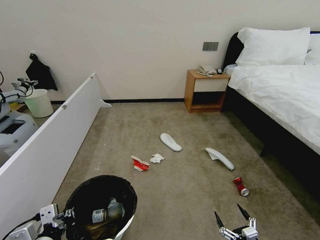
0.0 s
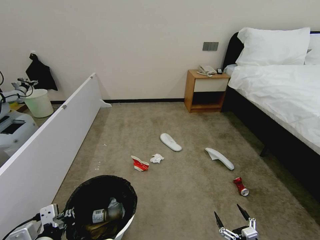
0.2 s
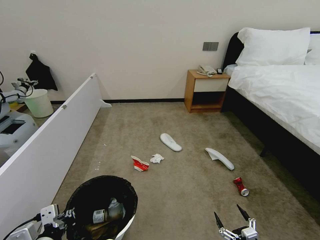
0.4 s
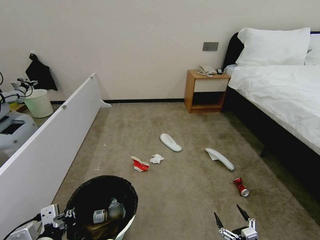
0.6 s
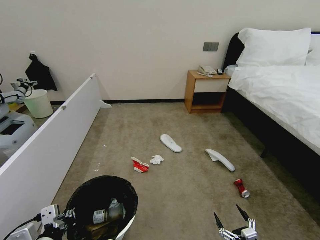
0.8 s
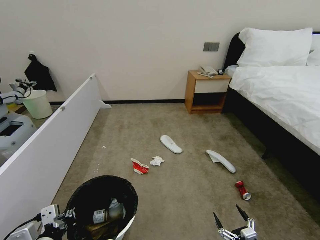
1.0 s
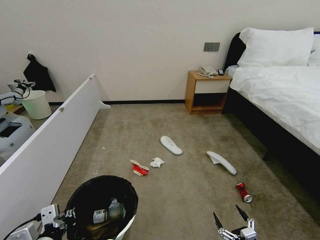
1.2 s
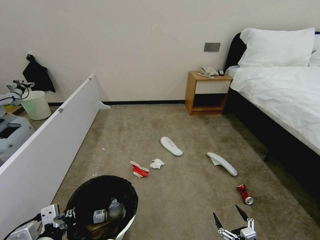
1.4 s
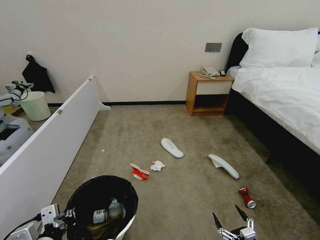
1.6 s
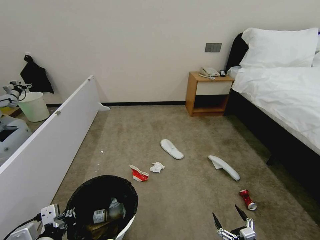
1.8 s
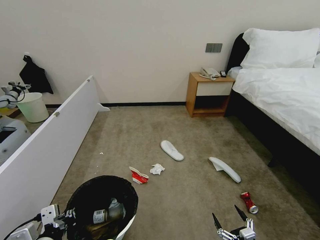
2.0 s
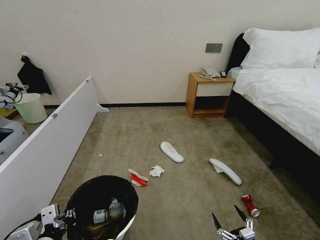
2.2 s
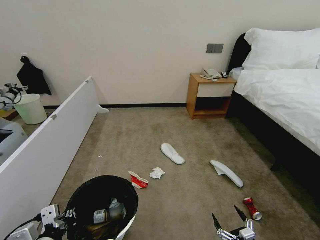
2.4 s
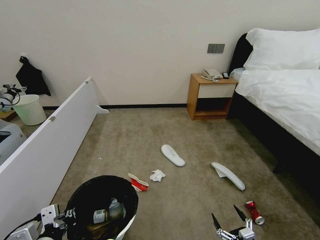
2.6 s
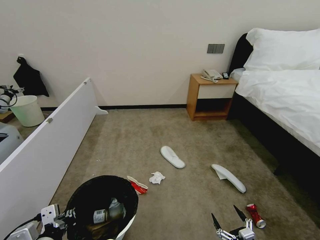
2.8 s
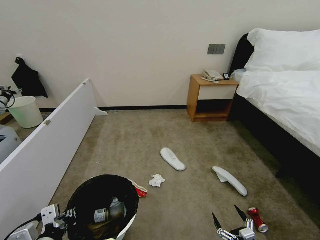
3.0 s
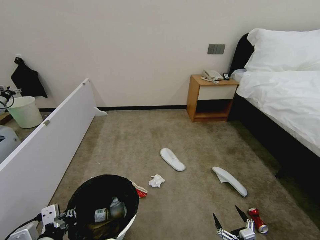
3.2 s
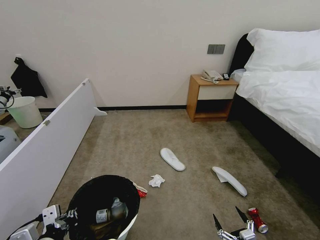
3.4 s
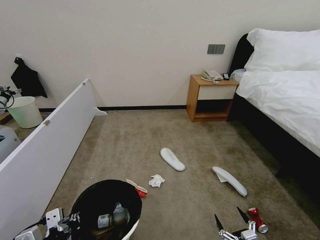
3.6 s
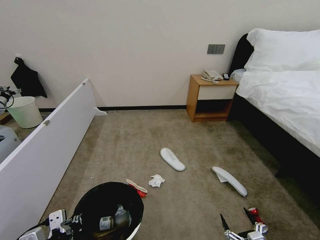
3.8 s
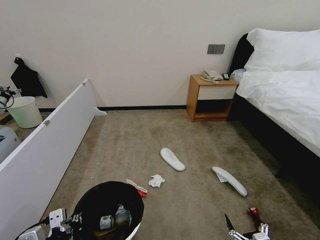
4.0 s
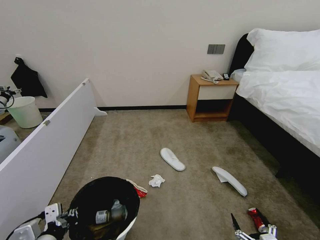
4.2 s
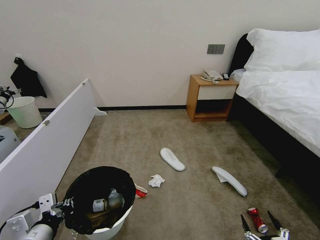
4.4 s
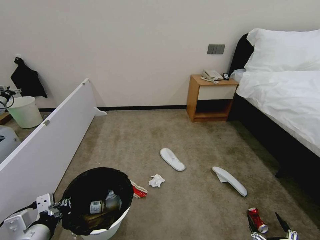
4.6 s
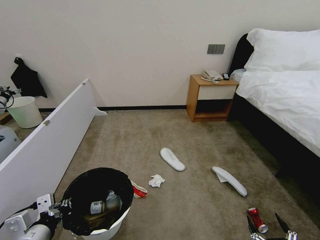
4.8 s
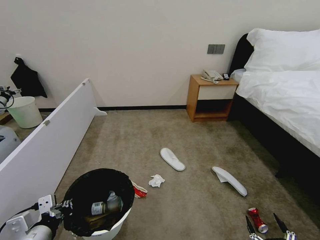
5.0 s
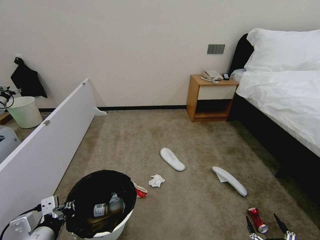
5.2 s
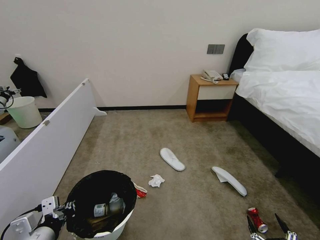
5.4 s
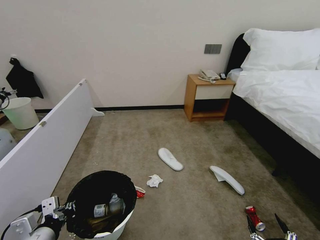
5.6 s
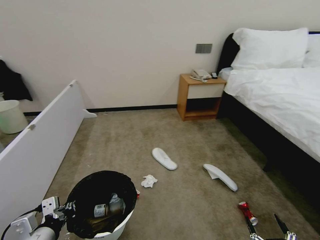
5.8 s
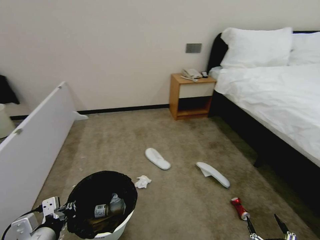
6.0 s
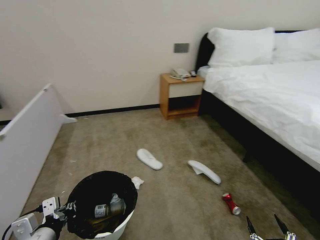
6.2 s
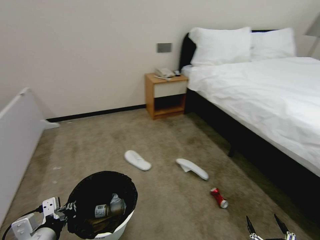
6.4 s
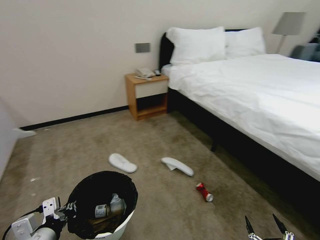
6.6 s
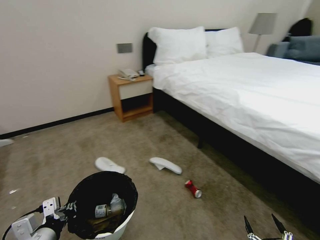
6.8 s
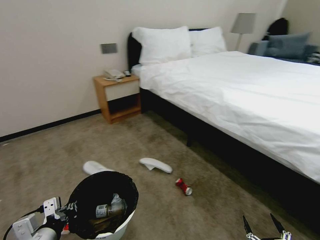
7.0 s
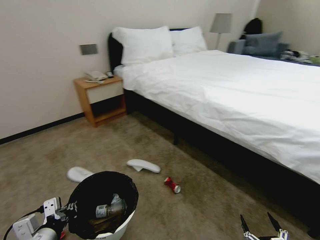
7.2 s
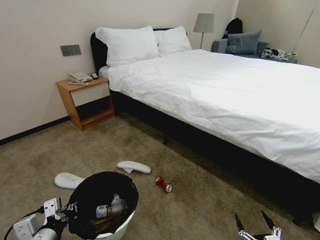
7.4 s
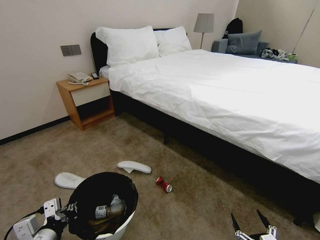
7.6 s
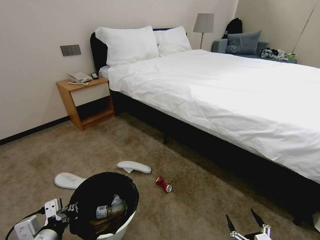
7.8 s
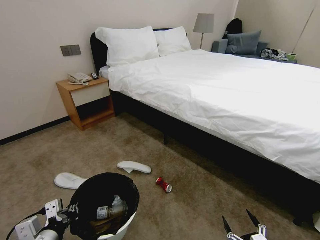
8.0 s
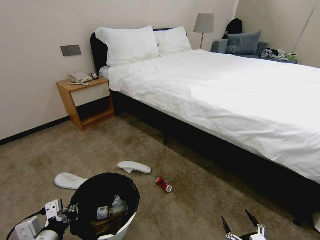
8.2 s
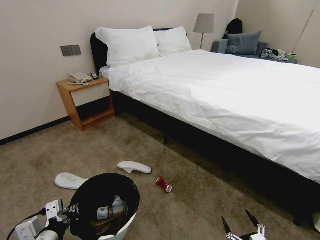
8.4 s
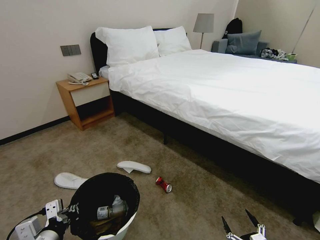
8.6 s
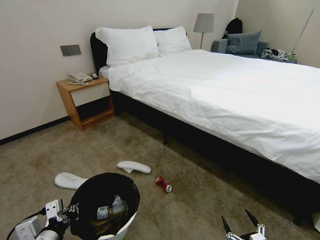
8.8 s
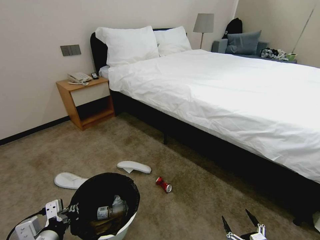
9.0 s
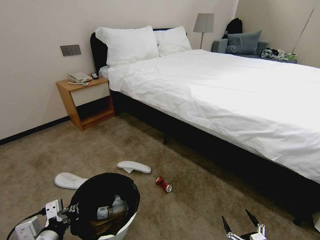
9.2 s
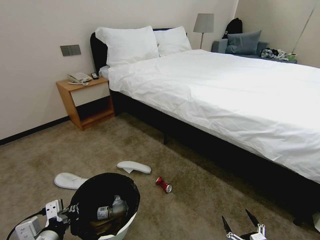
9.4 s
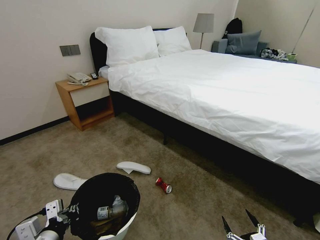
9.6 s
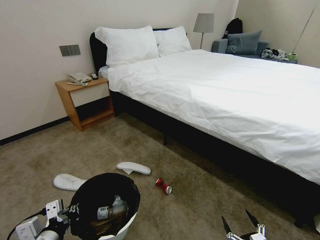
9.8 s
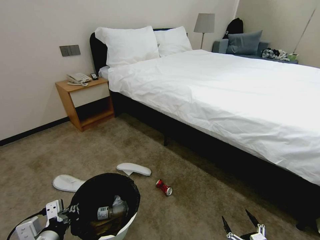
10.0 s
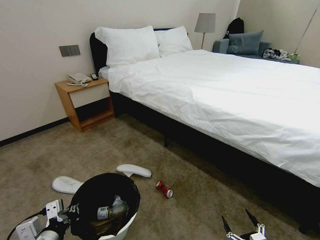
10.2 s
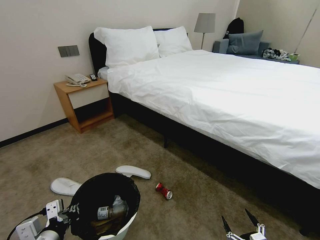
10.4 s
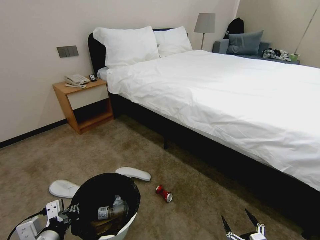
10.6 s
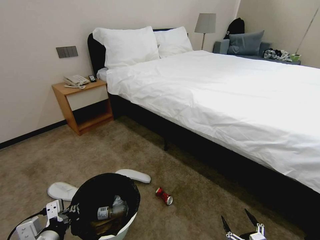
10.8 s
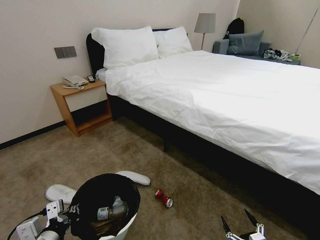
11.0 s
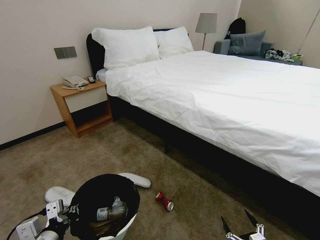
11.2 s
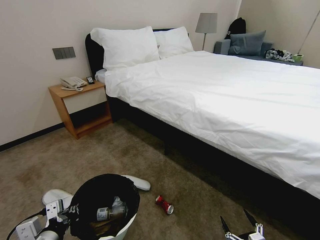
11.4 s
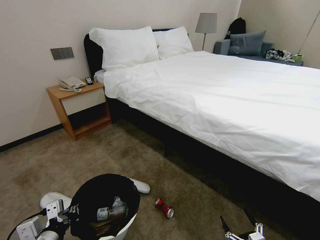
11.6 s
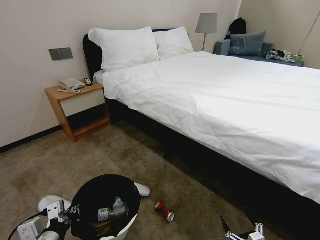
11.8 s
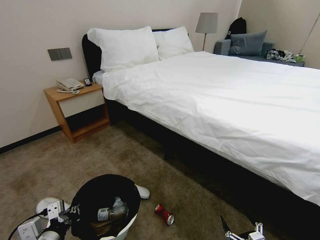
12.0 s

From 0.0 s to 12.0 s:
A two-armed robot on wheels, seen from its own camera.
Task of the whole recording: Pick up the trash bin, then pick up the garbage from the floor and place it into the trash bin.
From 0.0 s to 3.0 s: Neither gripper changes place.
From 3.0 s to 4.4 s: The right gripper changes place by some 5 cm.
From 7.6 s to 9.0 s: The grippers make only small movements.
From 9.0 s to 10.4 s: Neither gripper changes place.

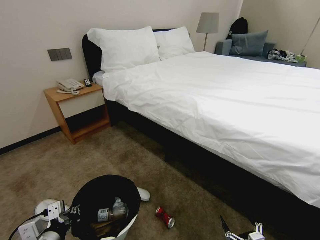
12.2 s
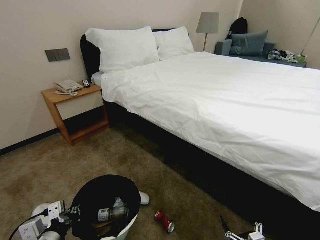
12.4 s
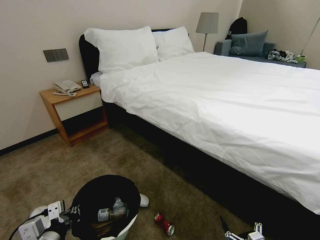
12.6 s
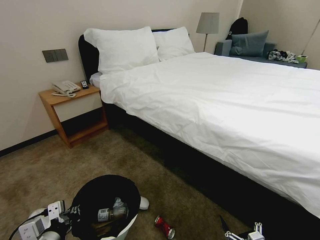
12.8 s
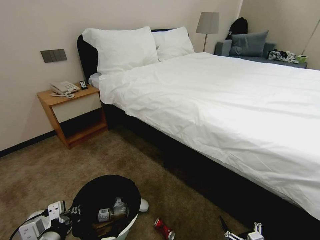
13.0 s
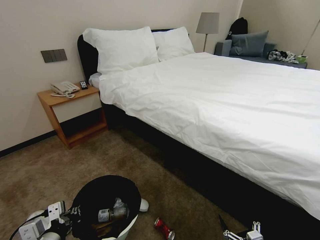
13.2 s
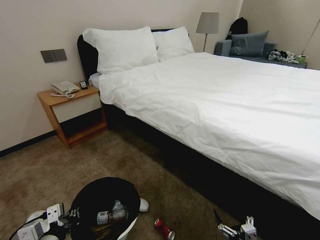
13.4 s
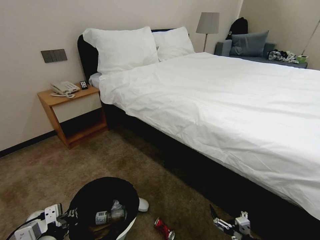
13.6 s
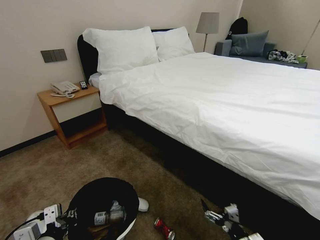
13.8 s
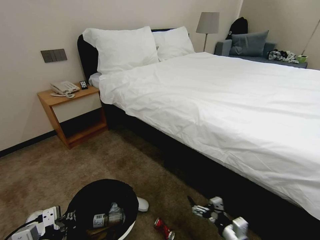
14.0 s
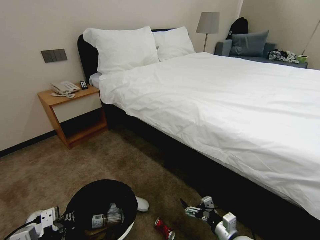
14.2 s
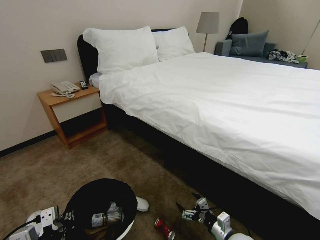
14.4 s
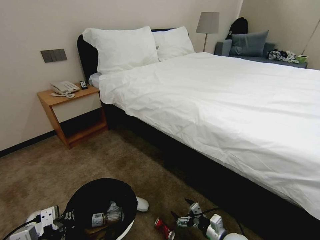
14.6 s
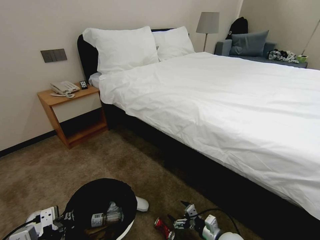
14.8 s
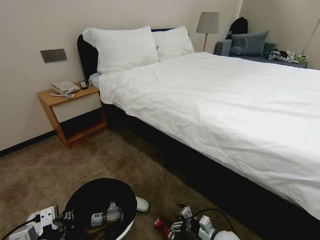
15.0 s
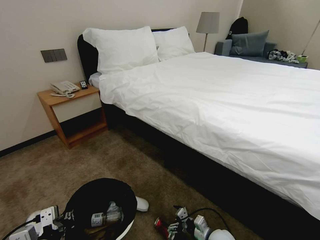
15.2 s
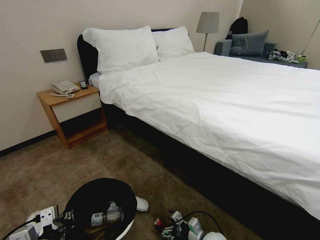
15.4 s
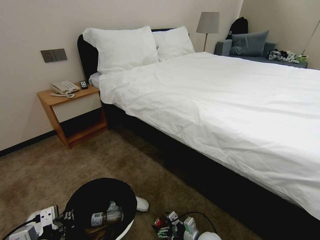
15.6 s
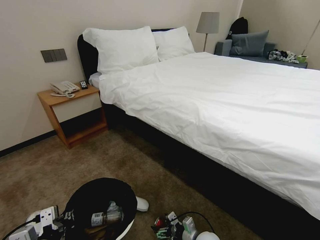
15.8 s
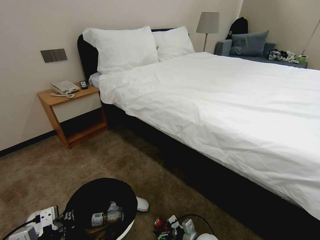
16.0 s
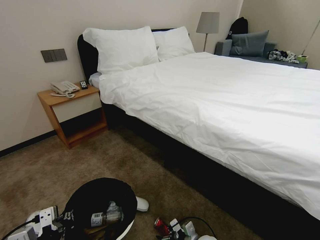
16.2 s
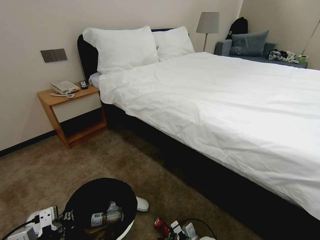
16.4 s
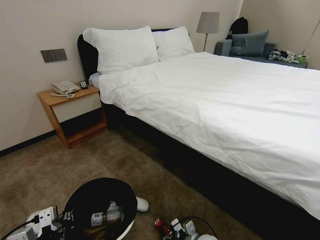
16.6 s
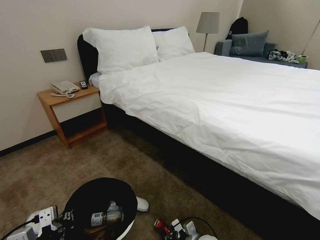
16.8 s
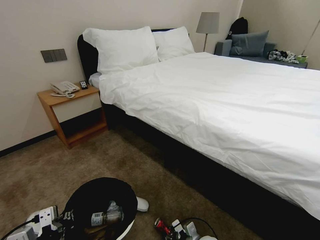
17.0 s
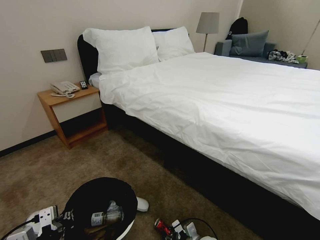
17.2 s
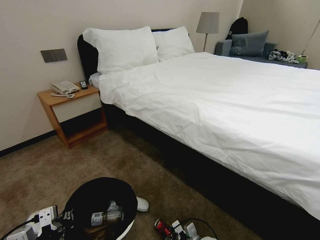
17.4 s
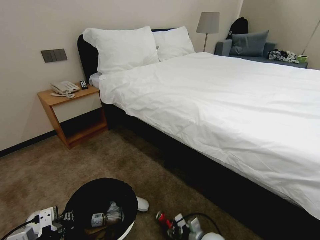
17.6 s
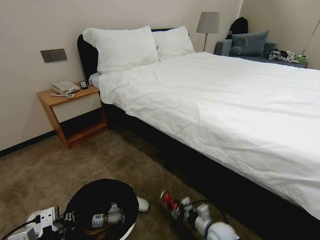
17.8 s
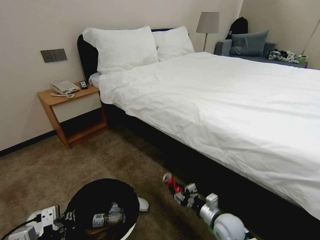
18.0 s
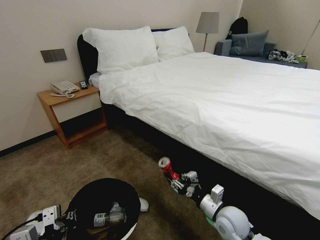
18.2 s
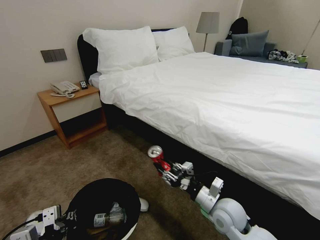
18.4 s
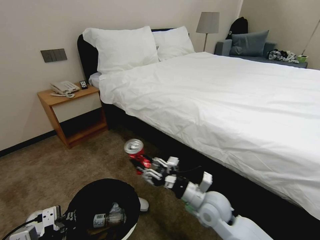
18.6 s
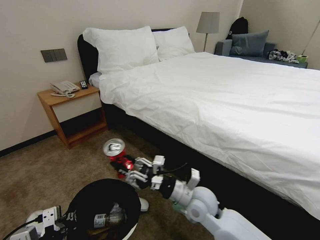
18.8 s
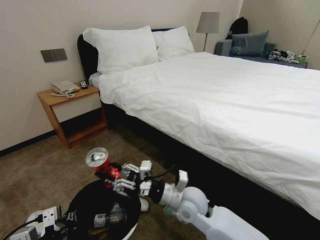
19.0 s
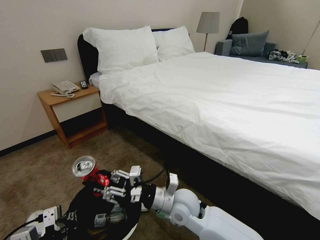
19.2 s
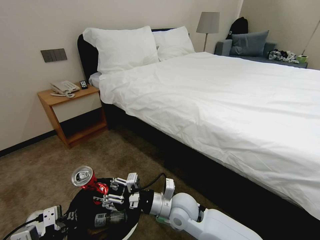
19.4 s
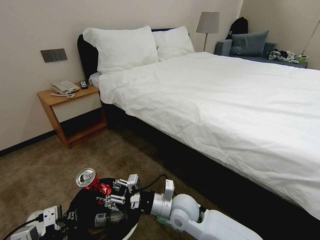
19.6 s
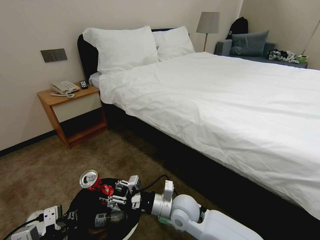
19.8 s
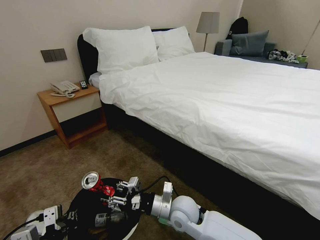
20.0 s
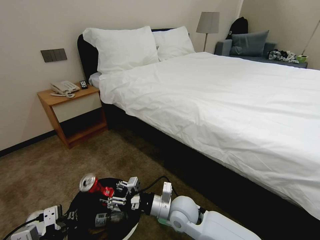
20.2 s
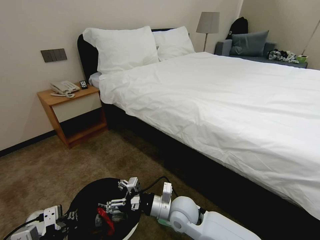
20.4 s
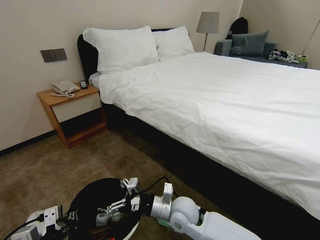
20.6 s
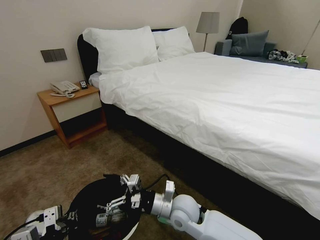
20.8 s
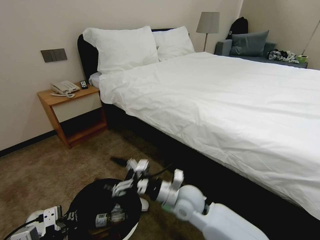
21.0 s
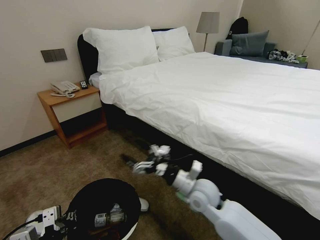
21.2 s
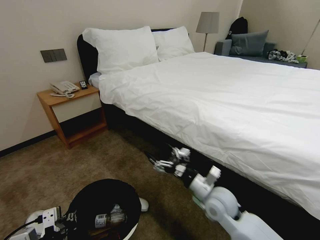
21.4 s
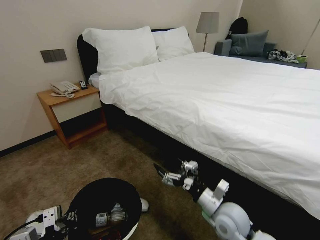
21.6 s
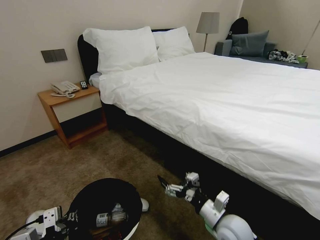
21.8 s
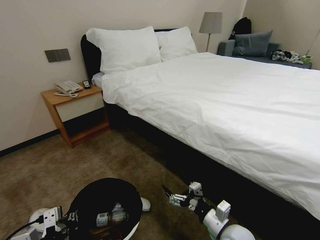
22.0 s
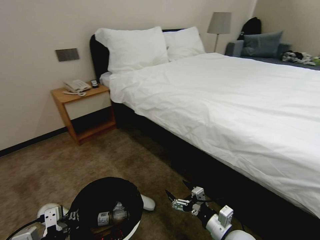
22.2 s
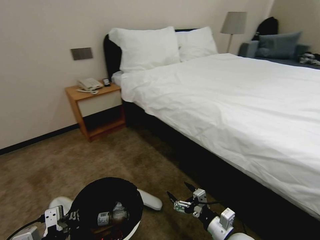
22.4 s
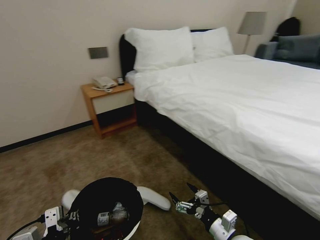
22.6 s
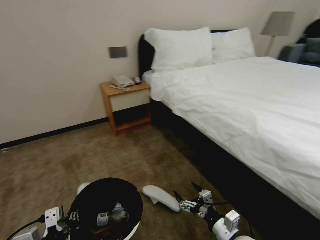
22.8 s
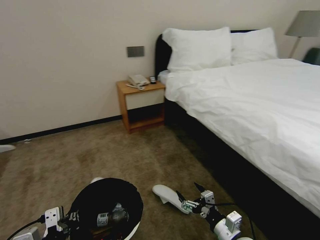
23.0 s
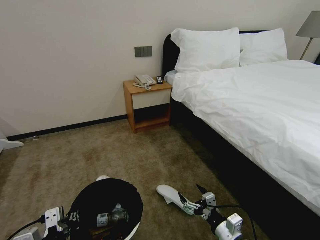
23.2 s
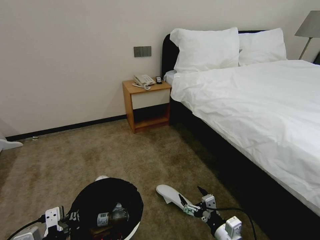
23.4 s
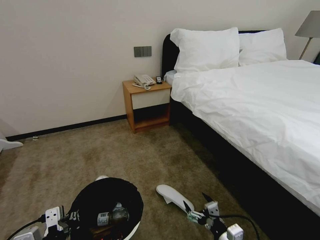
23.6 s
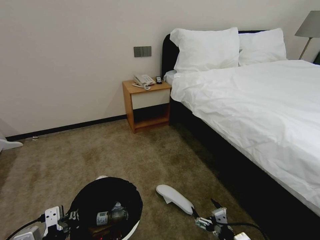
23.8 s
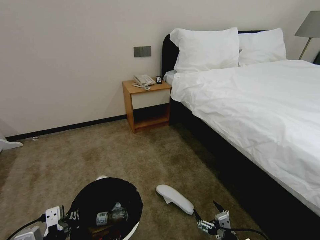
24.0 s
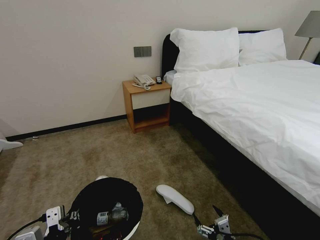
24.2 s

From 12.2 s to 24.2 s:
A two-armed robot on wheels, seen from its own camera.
Task of the whole recording: Pick up the trash bin, then pick up the garbage from the floor and place it into the trash bin.
From 12.2 s to 13.8 s: The right gripper is displaced forward by approximately 10 cm.
From 13.8 s to 15.2 s: The right gripper travels forward, to the left and downward by roughly 15 cm.
From 15.2 s to 16.6 s: The right gripper ends up roughly 5 cm from where it was.
From 16.6 s to 18.2 s: The right gripper goes about 20 cm upward, and closes its fingers.
From 18.2 s to 19.8 s: The right gripper goes approximately 15 cm to the left.
From 19.8 s to 21.2 s: The right gripper moves to the right, approximately 5 cm, and opens up.
From 21.2 s to 22.6 s: The right gripper moves backward, to the right and downward, approximately 20 cm.
From 22.6 s to 24.2 s: The right gripper heads backward and downward, covering about 10 cm.
